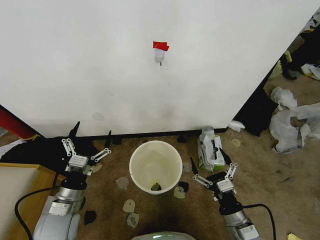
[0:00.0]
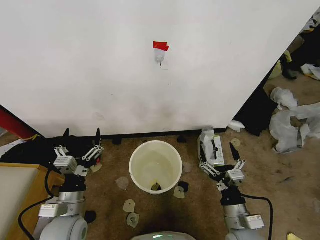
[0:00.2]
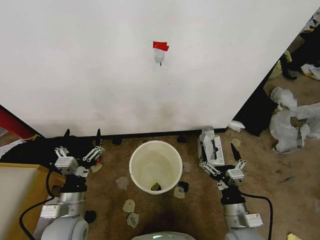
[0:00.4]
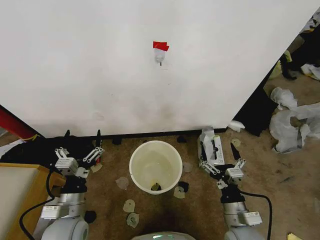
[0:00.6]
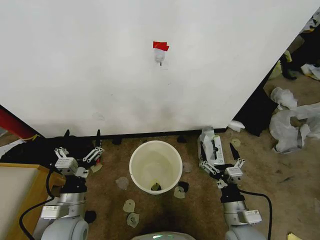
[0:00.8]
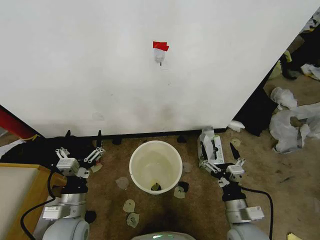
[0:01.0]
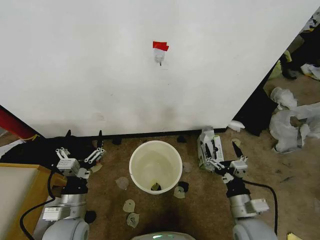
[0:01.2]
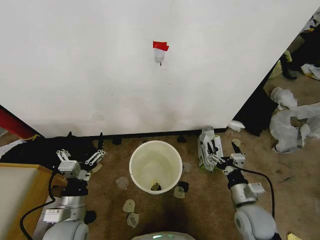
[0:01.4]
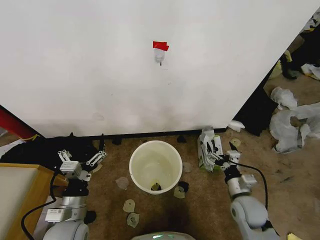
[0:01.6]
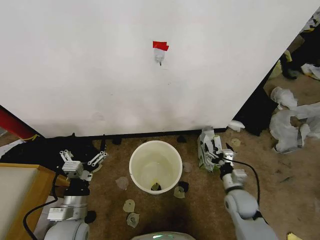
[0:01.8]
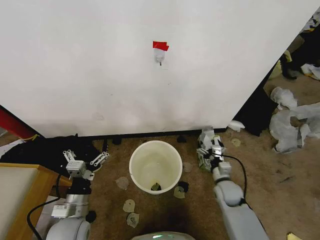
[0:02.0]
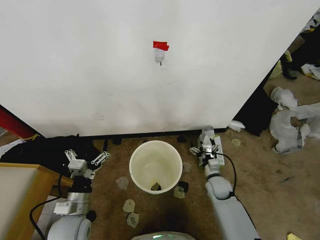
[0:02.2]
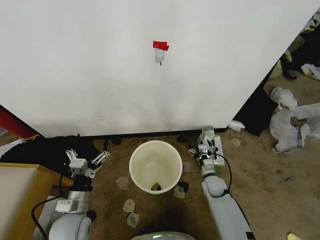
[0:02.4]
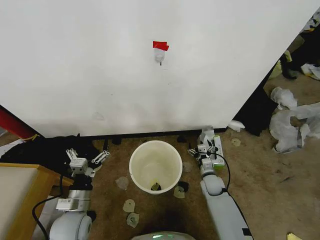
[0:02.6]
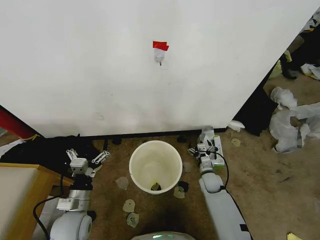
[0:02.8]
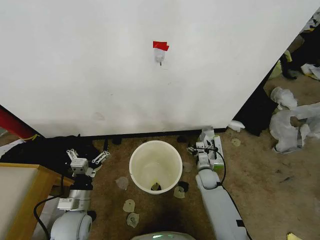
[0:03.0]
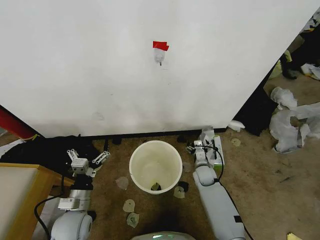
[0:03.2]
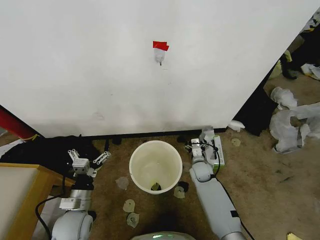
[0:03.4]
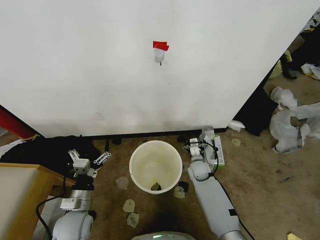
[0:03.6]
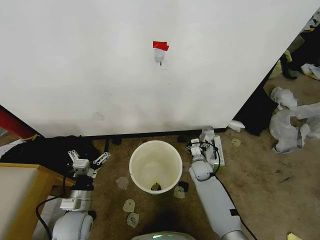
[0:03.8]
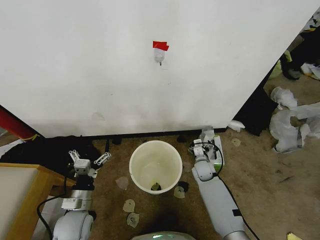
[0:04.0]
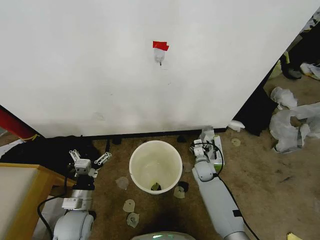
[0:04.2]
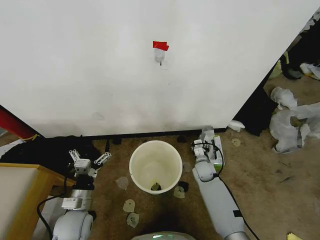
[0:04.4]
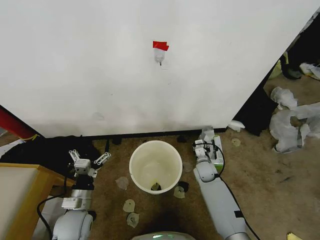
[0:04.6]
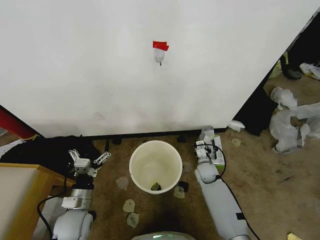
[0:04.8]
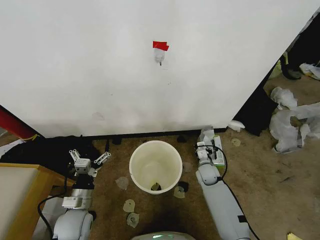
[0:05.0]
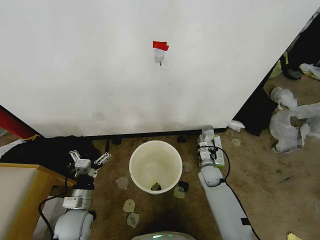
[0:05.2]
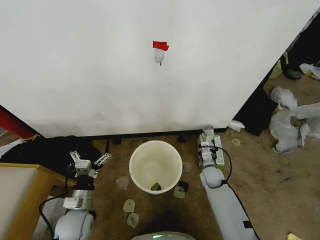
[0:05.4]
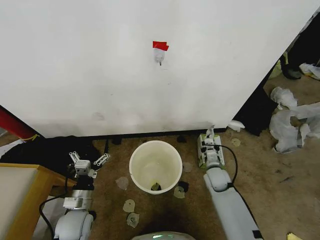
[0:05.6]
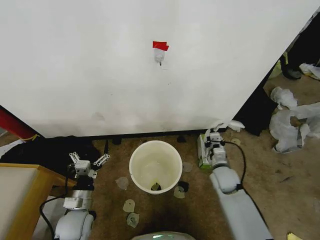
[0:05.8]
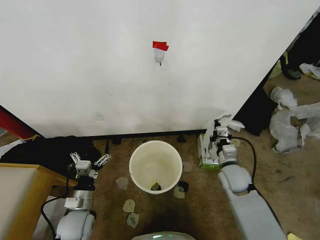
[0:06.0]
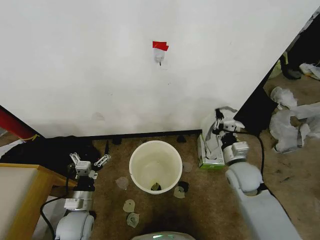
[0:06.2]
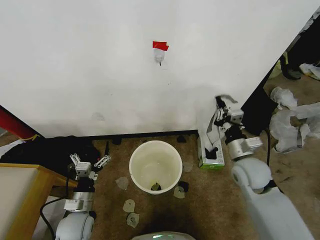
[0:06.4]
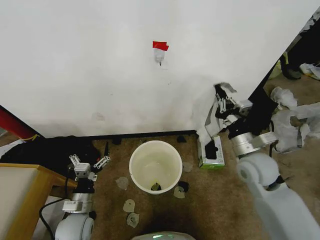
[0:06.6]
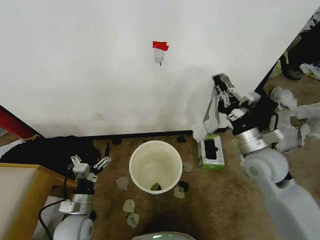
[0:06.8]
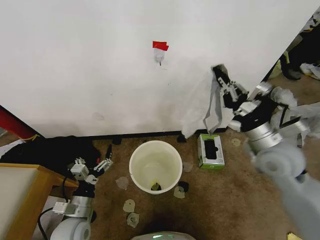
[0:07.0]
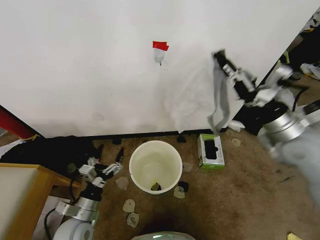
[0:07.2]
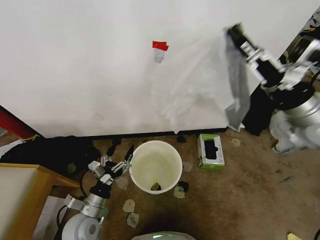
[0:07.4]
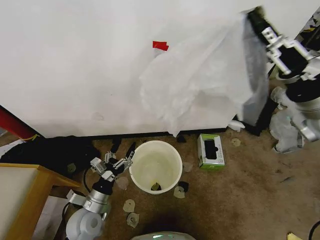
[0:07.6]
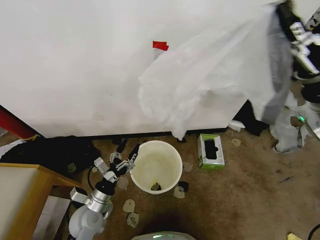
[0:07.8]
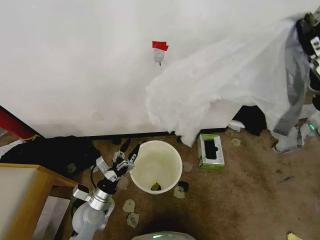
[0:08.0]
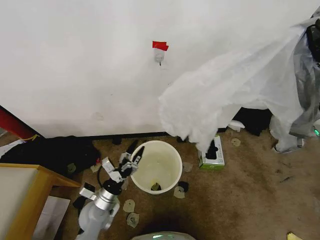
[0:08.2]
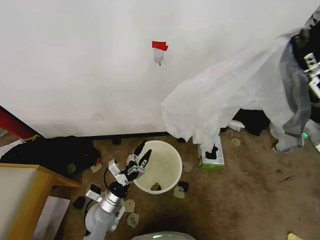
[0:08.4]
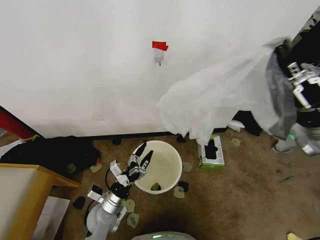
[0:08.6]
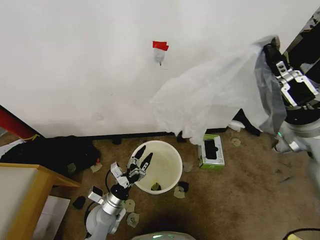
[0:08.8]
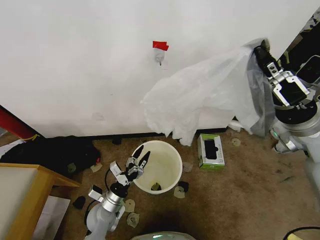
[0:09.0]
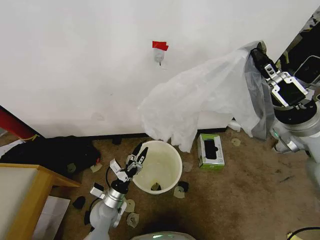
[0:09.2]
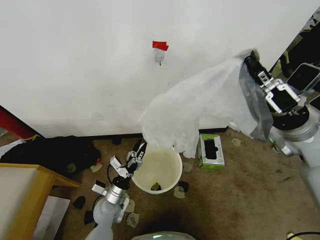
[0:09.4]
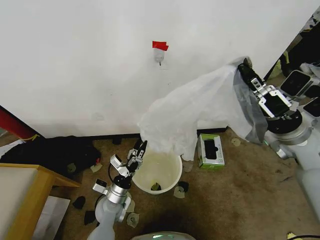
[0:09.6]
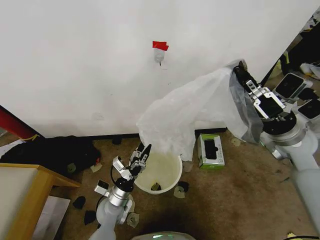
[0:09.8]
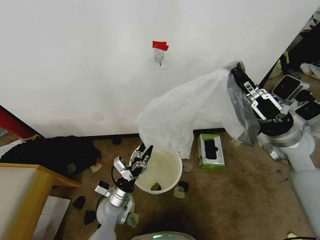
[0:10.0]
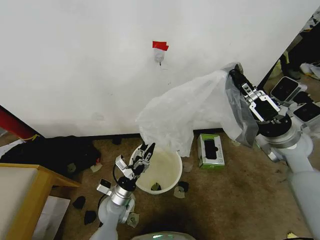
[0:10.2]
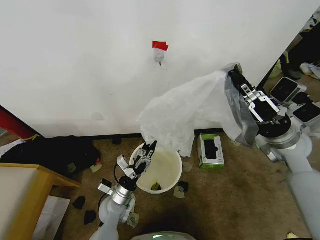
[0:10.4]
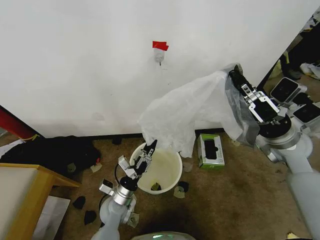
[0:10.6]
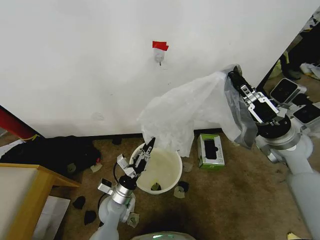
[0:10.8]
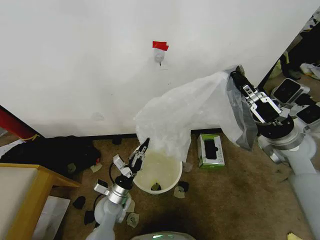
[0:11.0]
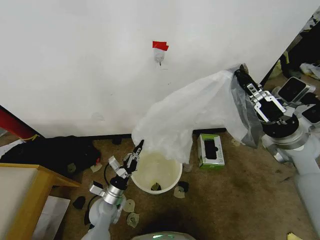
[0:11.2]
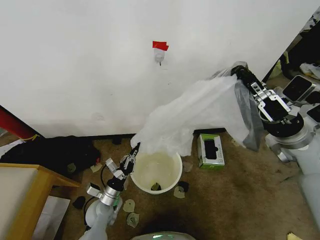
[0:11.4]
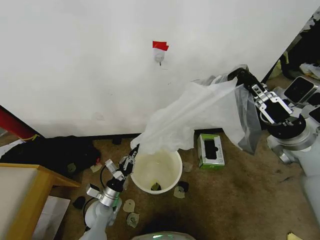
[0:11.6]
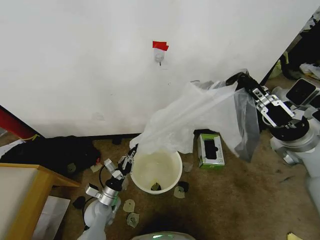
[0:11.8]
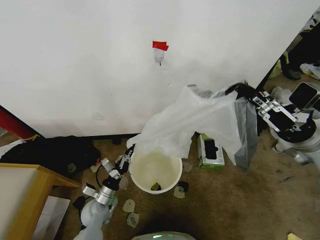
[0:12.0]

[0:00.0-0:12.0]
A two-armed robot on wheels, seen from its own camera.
Task of the whole recording: Place the garbage bag over the trash bin.
0:01.6 to 0:03.0: The left gripper moves some 5 cm; the right gripper travels forward, downward and to the left by some 20 cm.
0:03.0 to 0:04.4: The right gripper closes up.
0:04.4 to 0:06.0: The right gripper travels upward, backward and to the right by about 15 cm, and closes up.
0:06.0 to 0:07.6: The right gripper travels upward by approximately 30 cm.
0:07.6 to 0:09.0: Both grippers travel together downward, some 5 cm.
0:09.0 to 0:10.4: The right gripper ends up approximately 5 cm from where it was.
0:10.4 to 0:12.0: The left gripper goes some 10 cm to the left, and closes its fingers. Meanwhile the right gripper shifts approximately 5 cm to the right.

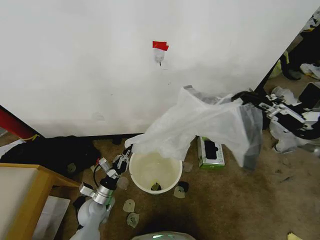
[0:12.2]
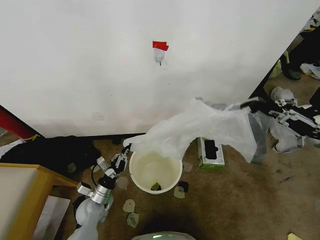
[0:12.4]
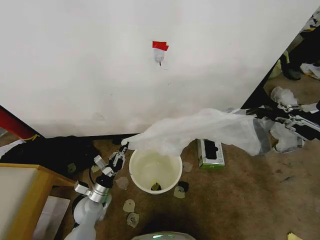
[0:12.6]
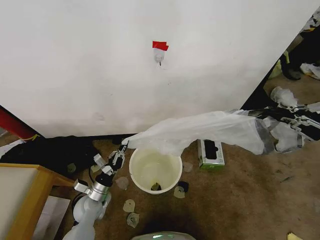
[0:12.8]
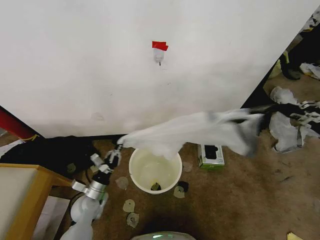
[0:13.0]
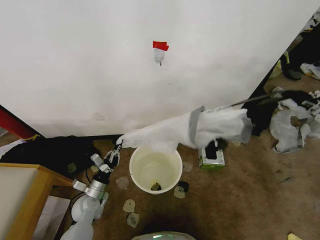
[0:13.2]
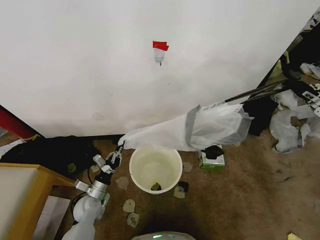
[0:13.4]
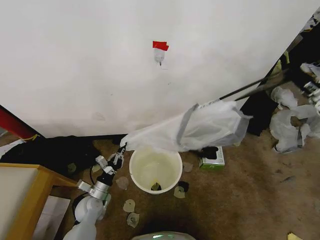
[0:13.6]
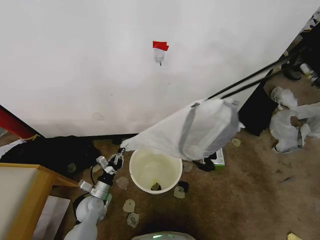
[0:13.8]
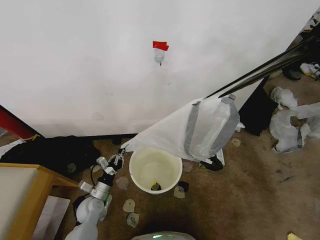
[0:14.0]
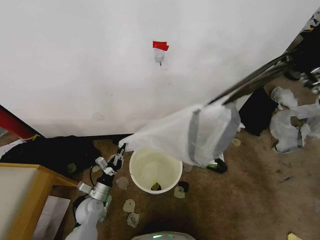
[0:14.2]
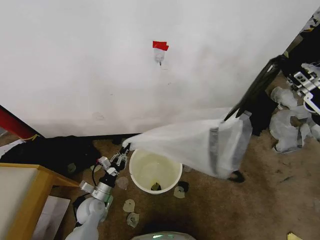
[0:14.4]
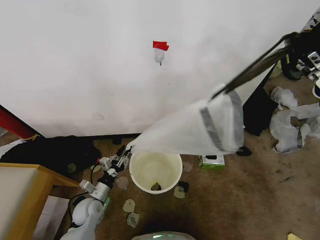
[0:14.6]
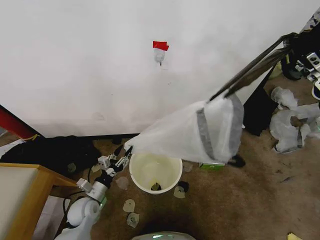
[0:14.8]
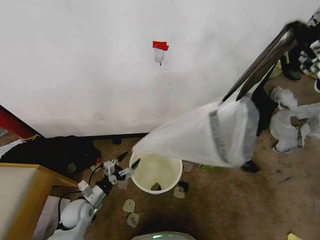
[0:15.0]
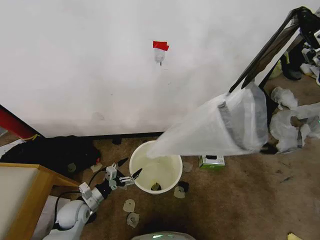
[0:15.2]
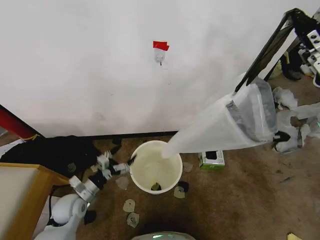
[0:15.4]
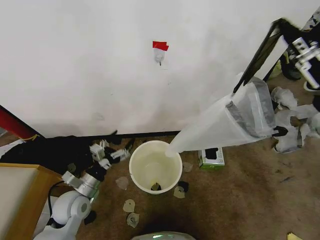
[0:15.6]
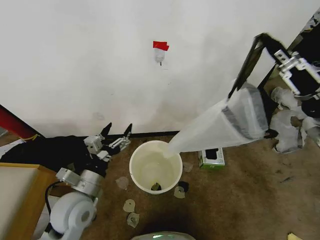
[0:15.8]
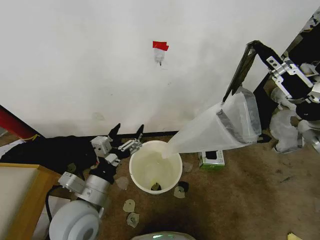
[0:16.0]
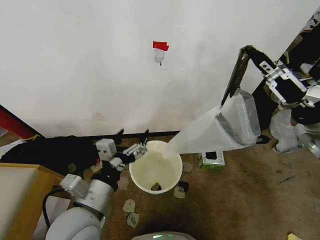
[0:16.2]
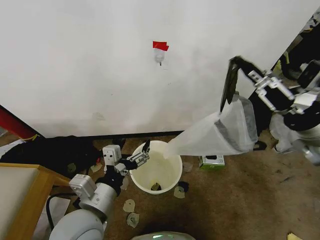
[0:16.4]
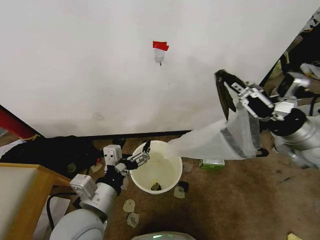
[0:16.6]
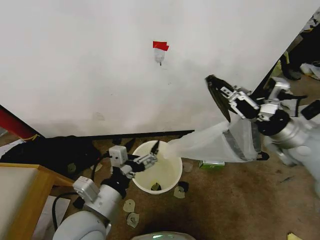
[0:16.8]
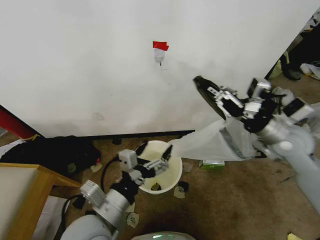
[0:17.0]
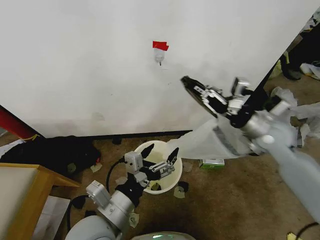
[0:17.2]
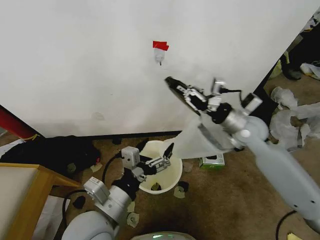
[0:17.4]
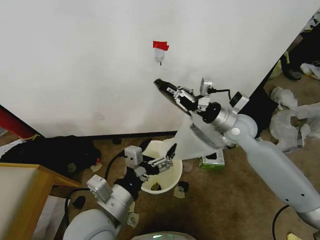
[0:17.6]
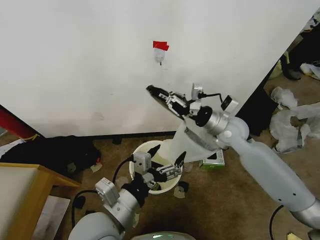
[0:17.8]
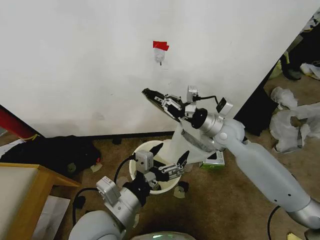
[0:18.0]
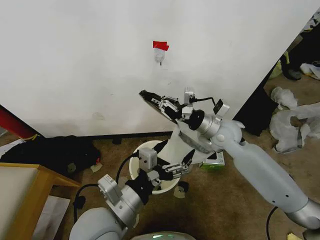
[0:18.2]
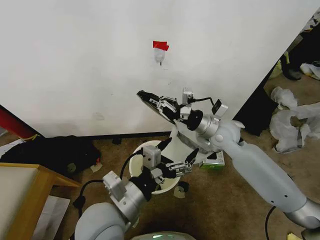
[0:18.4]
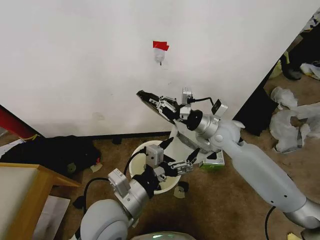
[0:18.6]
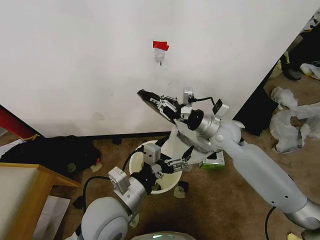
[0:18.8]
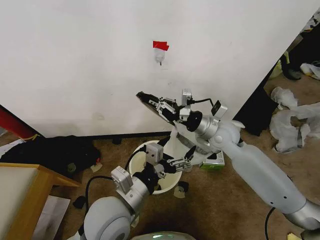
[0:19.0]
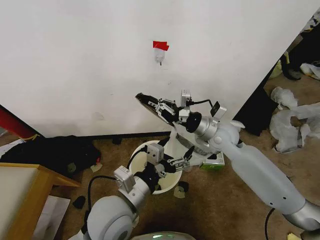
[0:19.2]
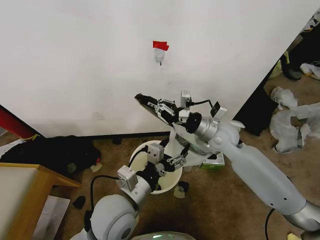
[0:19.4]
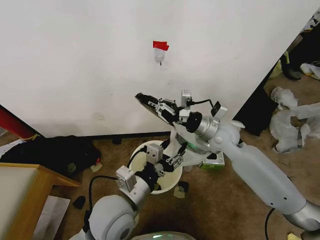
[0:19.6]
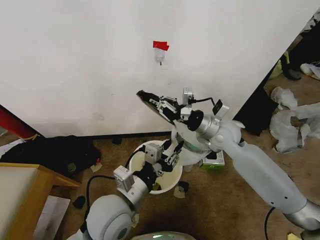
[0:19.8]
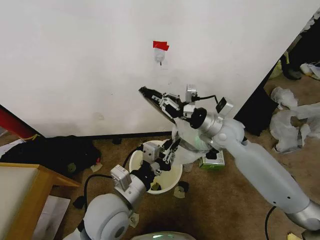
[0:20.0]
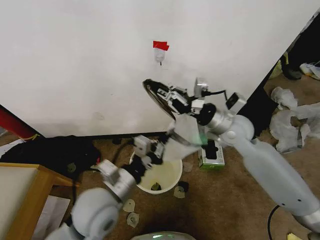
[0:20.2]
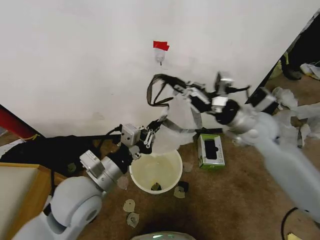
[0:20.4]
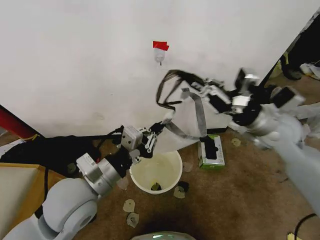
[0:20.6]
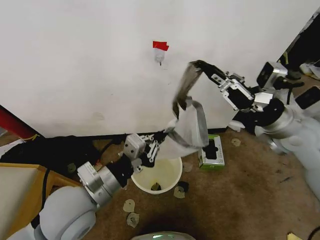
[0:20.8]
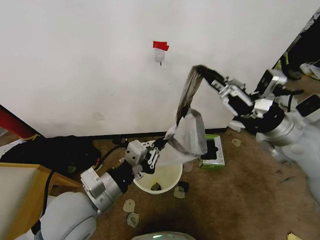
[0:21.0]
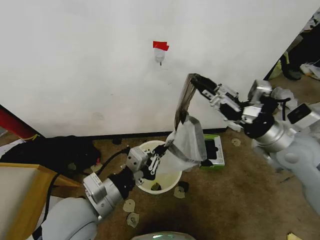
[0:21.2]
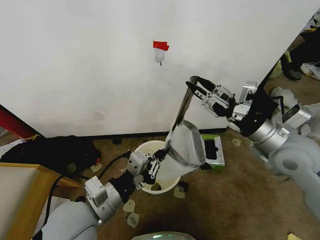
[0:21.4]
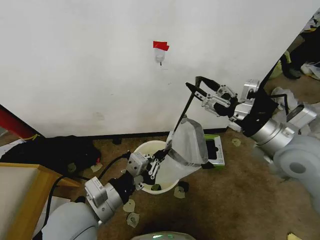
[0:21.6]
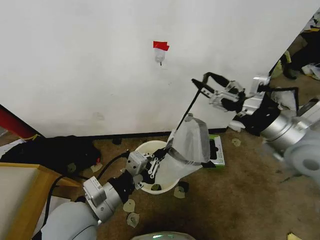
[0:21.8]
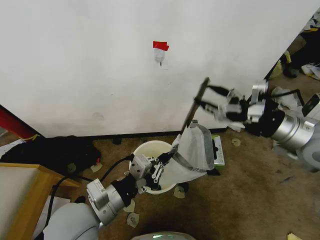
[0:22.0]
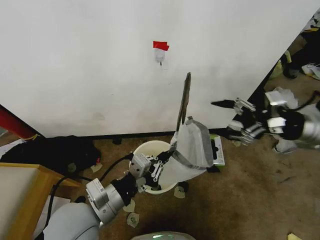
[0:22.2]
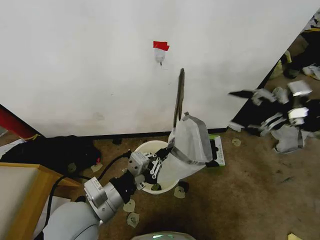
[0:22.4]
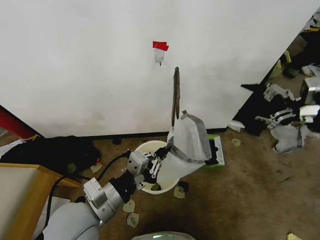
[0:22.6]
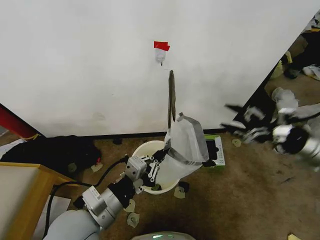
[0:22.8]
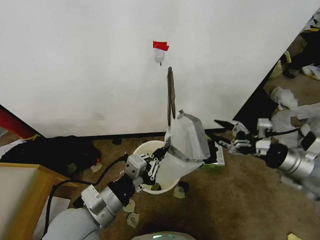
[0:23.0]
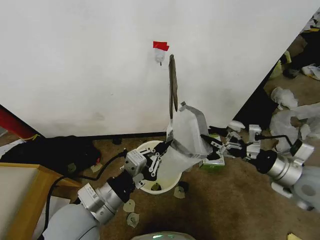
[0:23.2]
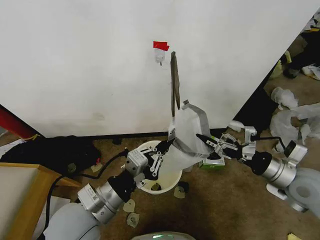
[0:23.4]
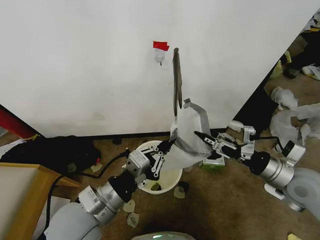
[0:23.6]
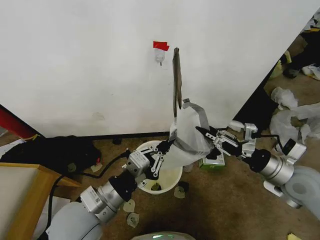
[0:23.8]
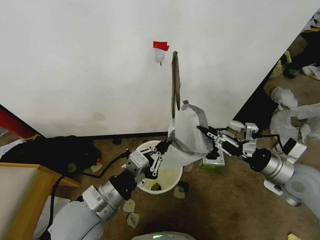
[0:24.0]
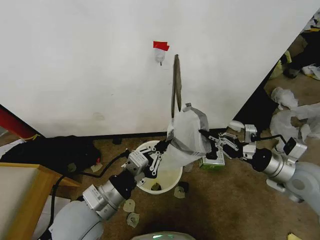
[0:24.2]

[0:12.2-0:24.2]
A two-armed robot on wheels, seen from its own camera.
Task of the whole recording: Place the garbage bag over the trash bin.
0:12.2 to 0:13.8: The right gripper is displaced upward by approximately 5 cm, and goes to the right and returns, about 10 cm each way.
0:13.8 to 0:15.2: The left gripper changes place by about 5 cm, and opens.
0:15.2 to 0:16.6: The left gripper shifts some 30 cm upward, to the right and backward, while the right gripper travels downward and to the left by about 10 cm.
0:16.6 to 0:18.2: The right gripper moves to the left, forward and downward, roughly 20 cm.
0:18.2 to 0:19.8: The left gripper closes its fingers.
0:19.8 to 0:21.2: The right gripper heads to the right, backward and upward, covering approximately 15 cm; the left gripper is displaced to the left by some 5 cm.
0:21.2 to 0:22.6: The right gripper goes roughly 15 cm to the right and upward, and opens.
0:22.6 to 0:24.2: The right gripper goes some 15 cm downward and to the left, and closes its fingers.
